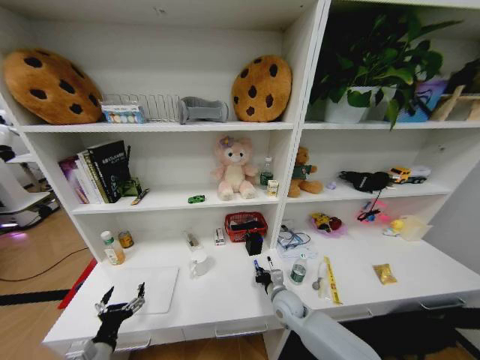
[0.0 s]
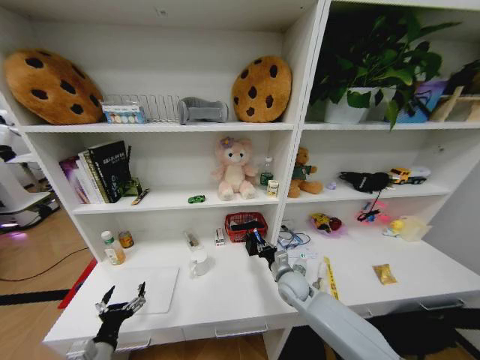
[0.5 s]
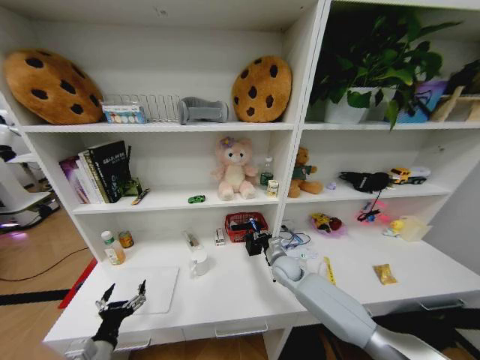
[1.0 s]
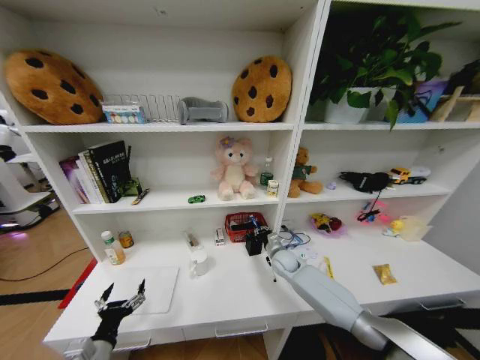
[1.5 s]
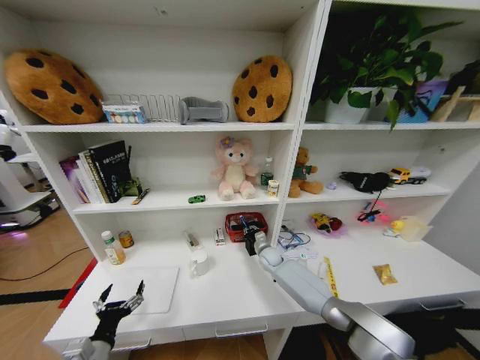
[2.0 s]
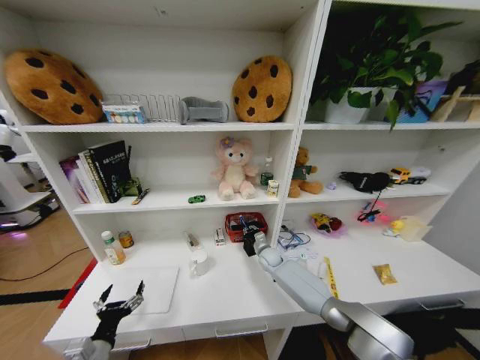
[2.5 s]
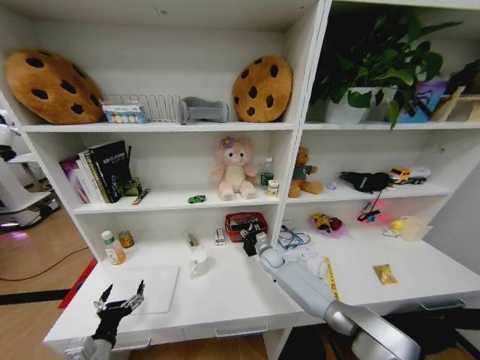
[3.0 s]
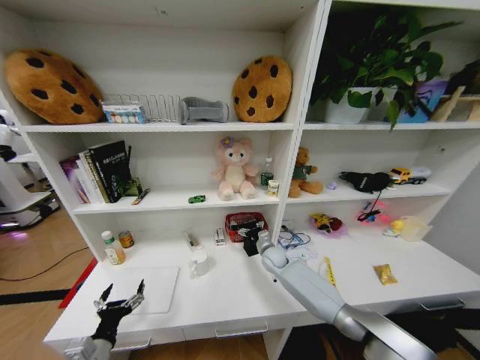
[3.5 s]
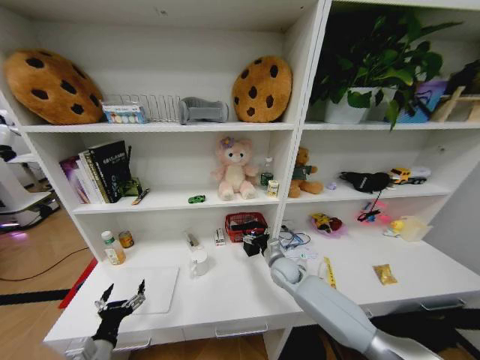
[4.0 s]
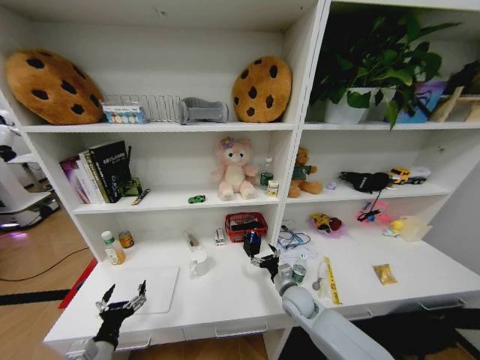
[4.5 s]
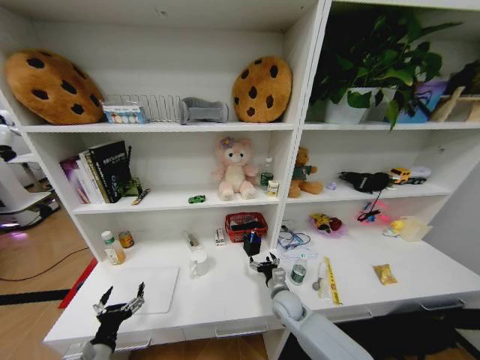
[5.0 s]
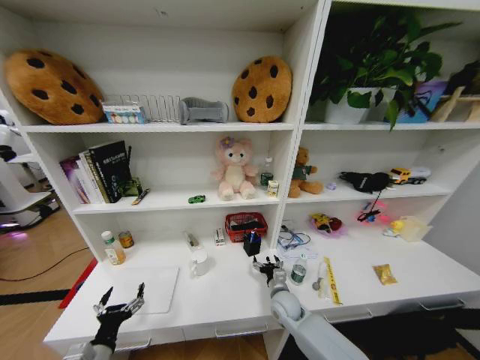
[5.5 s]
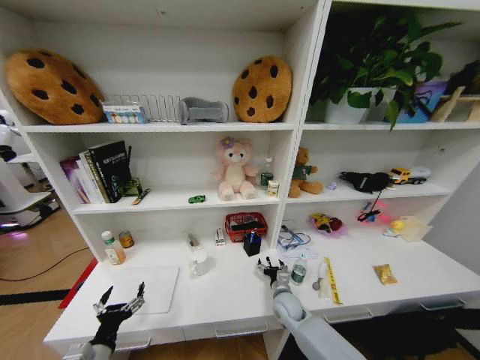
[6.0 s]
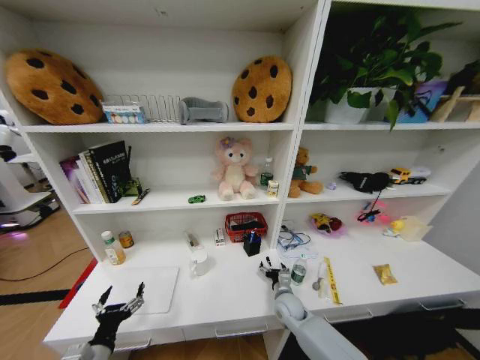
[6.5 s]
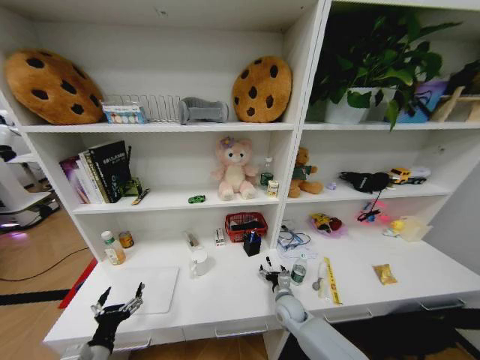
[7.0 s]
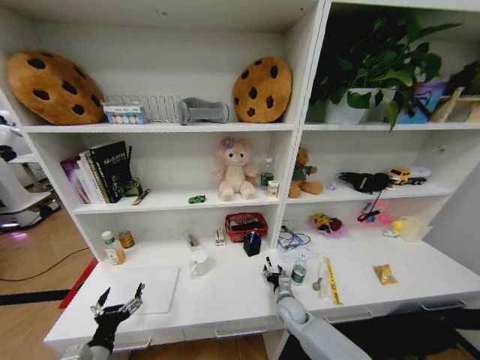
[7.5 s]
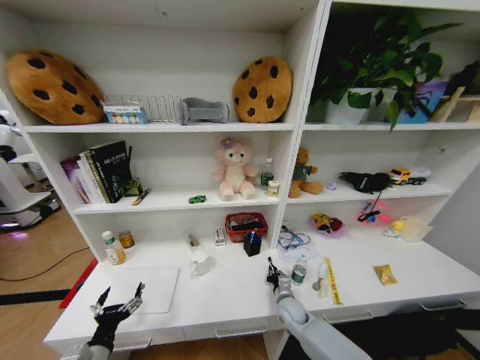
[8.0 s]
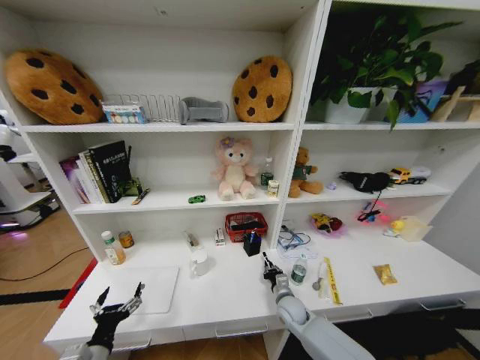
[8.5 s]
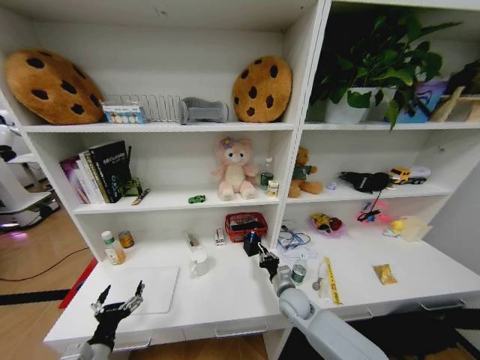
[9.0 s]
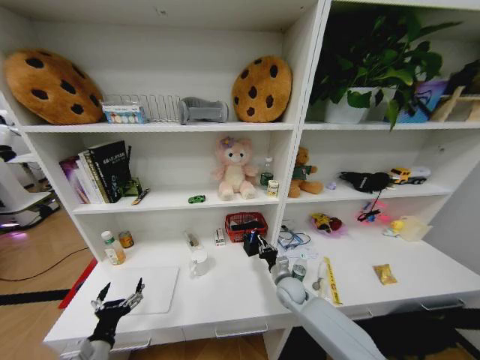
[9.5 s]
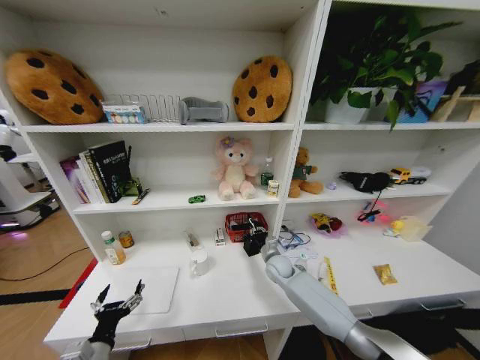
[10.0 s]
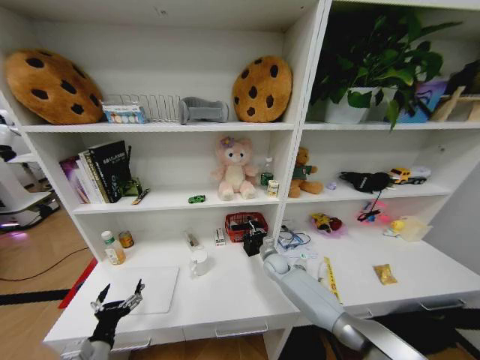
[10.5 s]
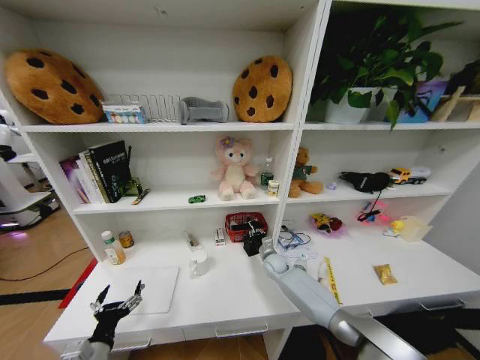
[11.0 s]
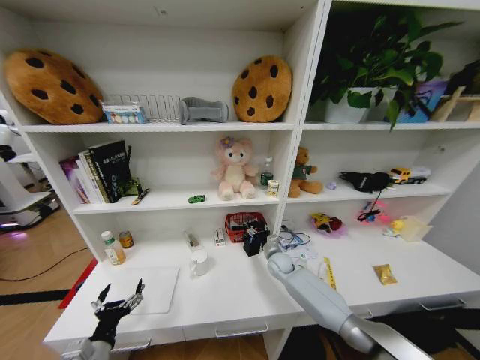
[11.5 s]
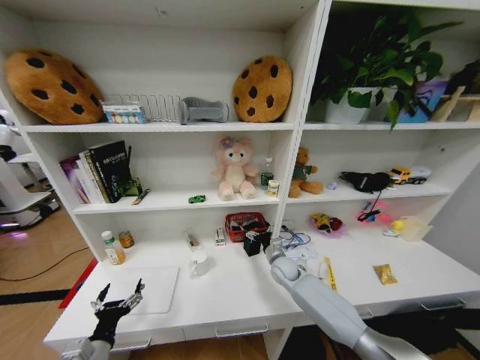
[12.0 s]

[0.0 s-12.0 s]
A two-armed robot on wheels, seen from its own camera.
Task of the whole recording: Organize the objects on the table.
0.0 to 2.0 s: The right gripper goes some 20 cm forward.
2.0 to 4.0 s: The right gripper travels backward and upward by approximately 10 cm, and opens.
4.0 to 6.0 s: The right gripper is displaced backward and downward by roughly 15 cm.
6.0 to 8.0 s: The right gripper closes up.
8.0 to 10.0 s: The right gripper is displaced forward and upward by roughly 15 cm.
10.0 to 12.0 s: The right gripper opens up.

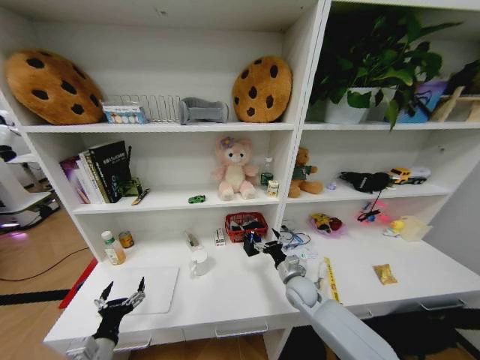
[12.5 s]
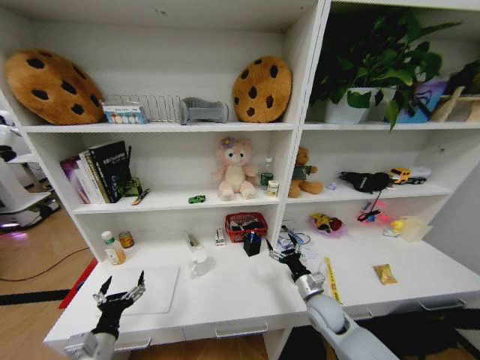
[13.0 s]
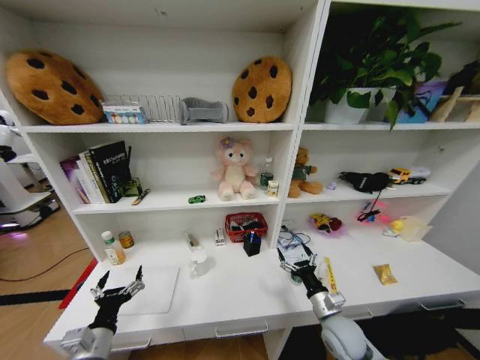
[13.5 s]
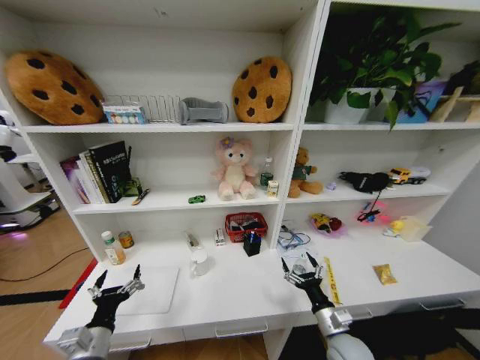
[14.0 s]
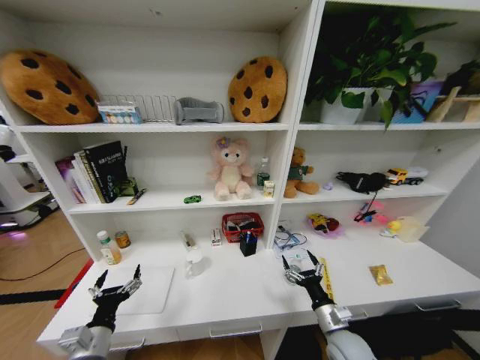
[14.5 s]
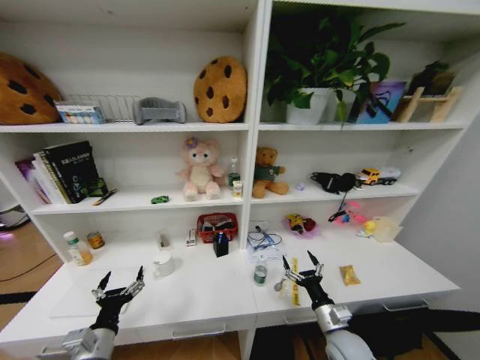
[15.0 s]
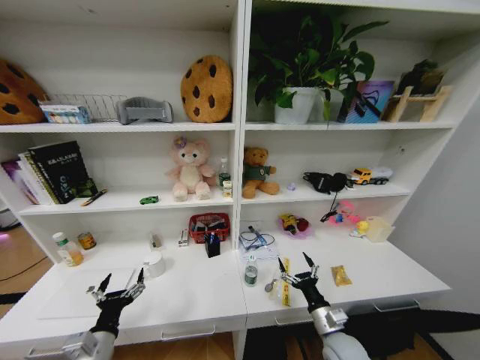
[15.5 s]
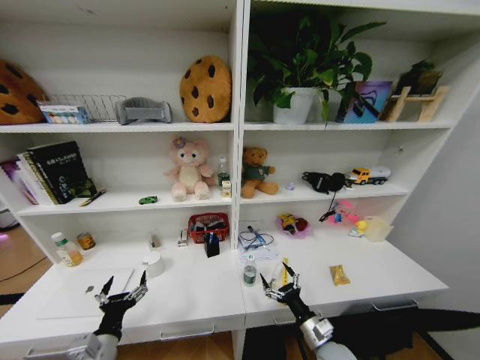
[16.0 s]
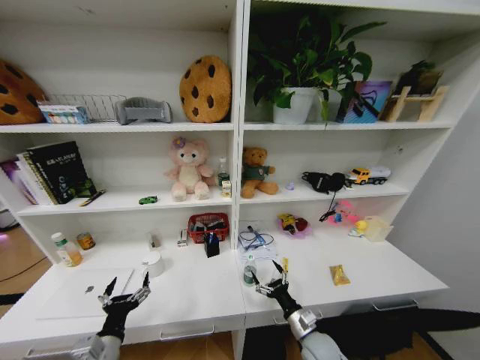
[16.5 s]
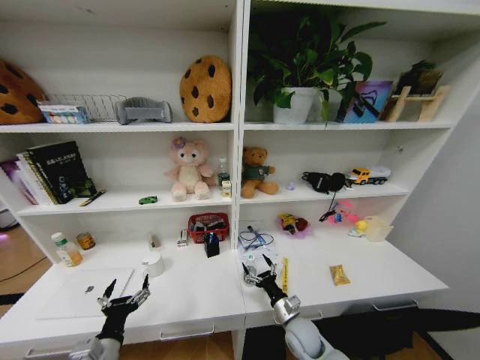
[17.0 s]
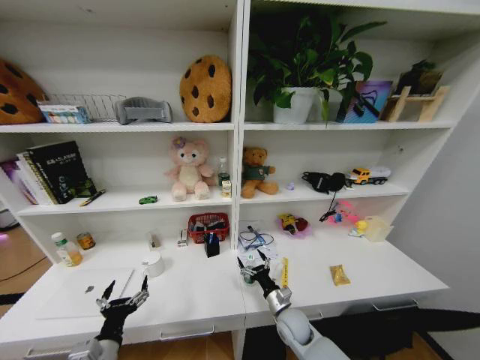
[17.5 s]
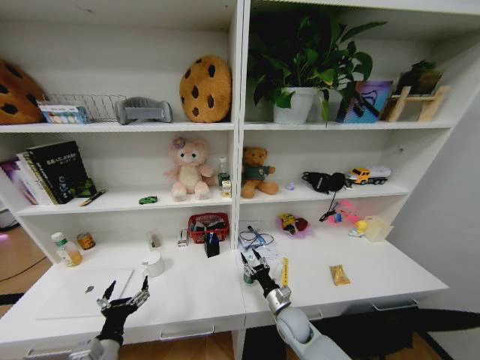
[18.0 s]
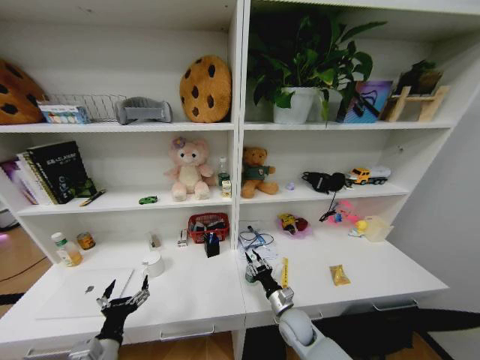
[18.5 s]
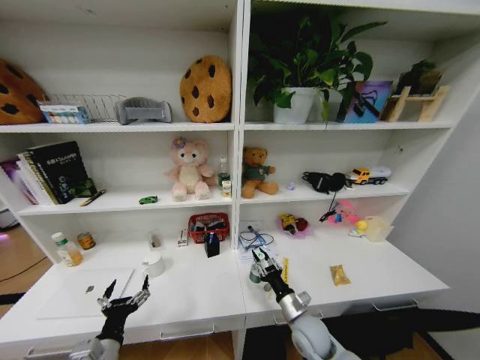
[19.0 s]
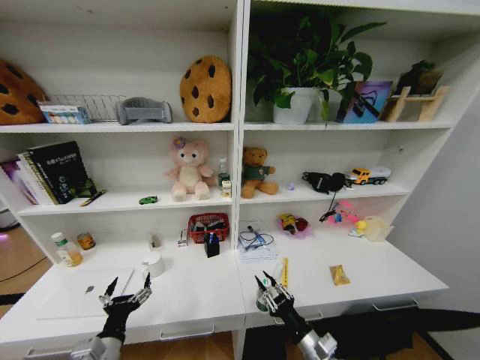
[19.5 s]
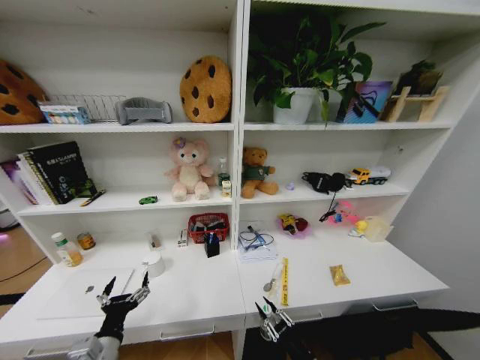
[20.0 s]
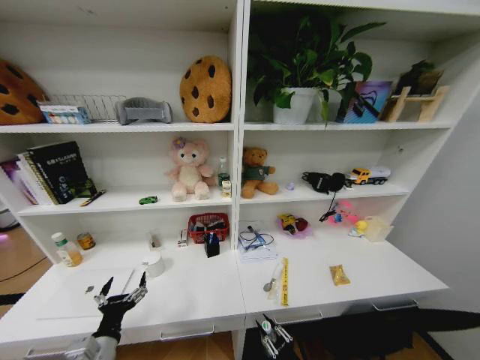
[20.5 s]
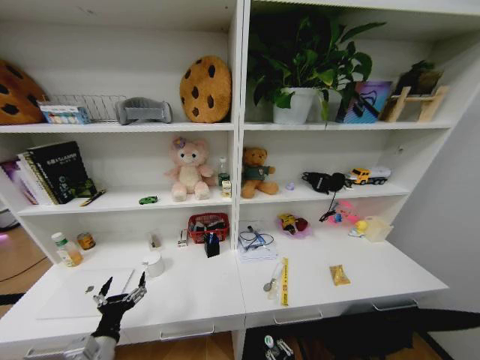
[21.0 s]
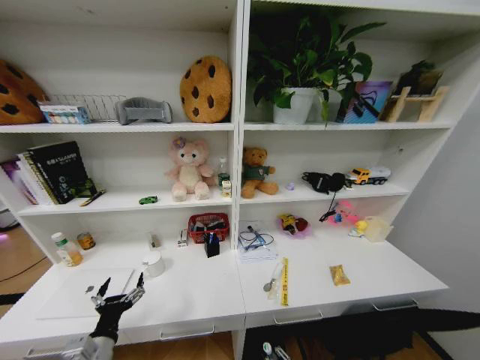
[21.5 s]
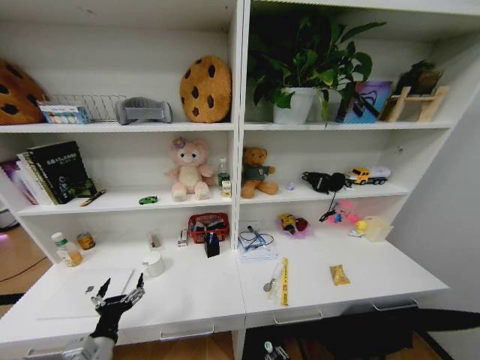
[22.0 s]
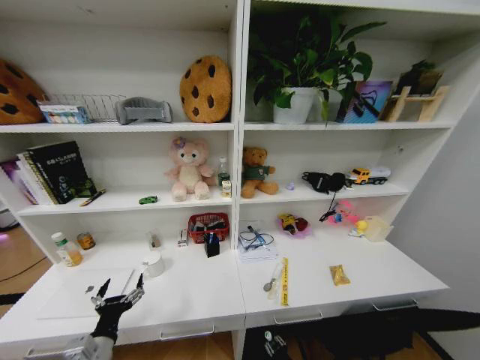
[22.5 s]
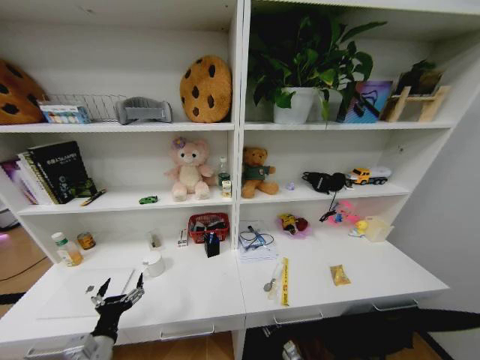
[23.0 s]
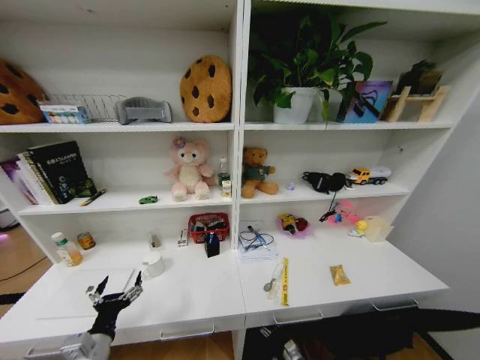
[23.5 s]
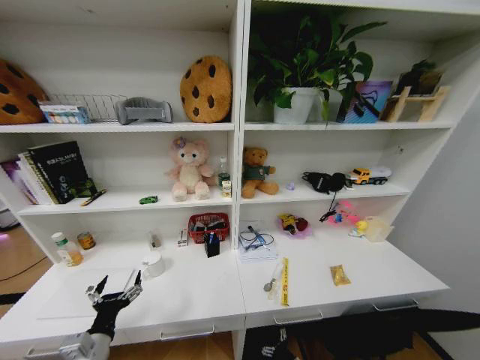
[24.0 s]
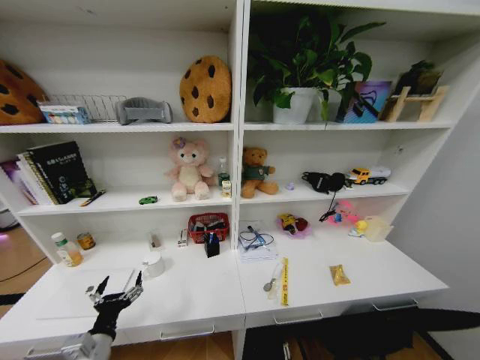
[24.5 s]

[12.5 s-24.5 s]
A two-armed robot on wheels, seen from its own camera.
Task of the whole recording: Organize the objects on the table.
12.5 to 14.5 s: The right gripper is displaced backward and to the right by approximately 15 cm.
14.5 to 16.5 s: The right gripper travels to the left by approximately 5 cm.
16.5 to 18.5 s: The right gripper is displaced forward by about 5 cm, and closes.
18.5 to 20.5 s: The right gripper is displaced backward by about 20 cm.

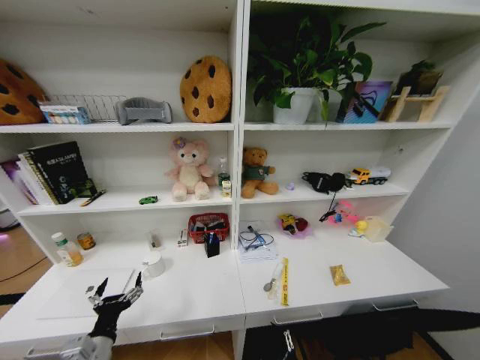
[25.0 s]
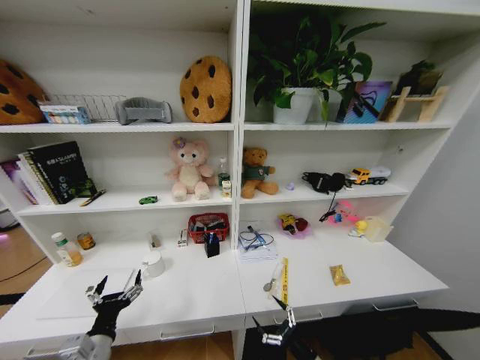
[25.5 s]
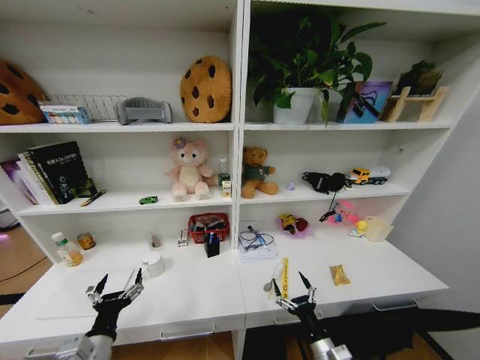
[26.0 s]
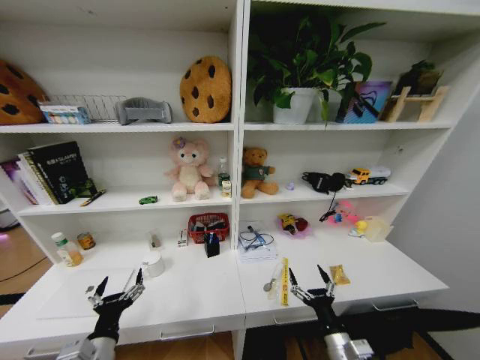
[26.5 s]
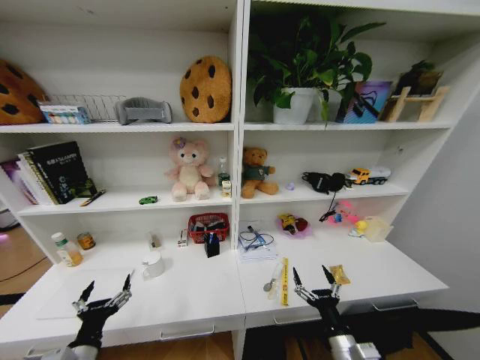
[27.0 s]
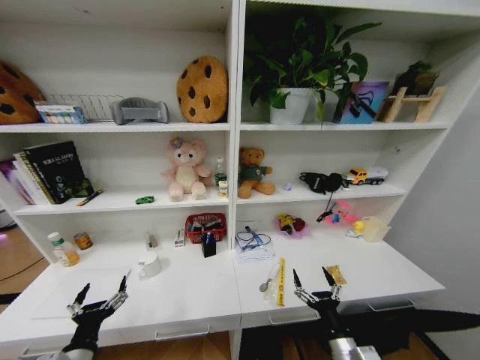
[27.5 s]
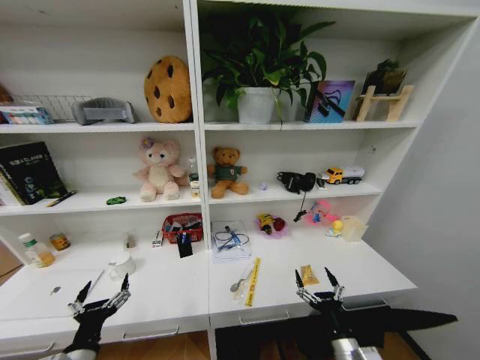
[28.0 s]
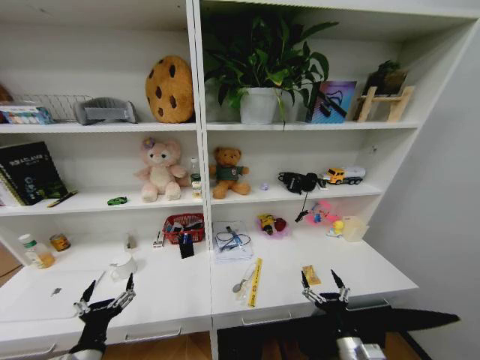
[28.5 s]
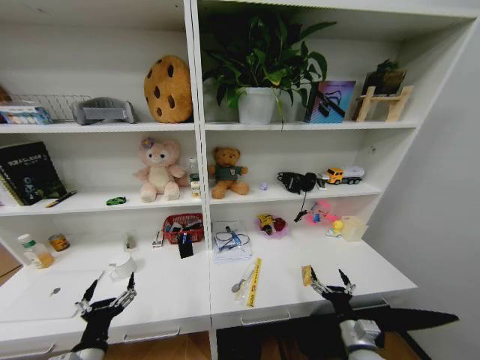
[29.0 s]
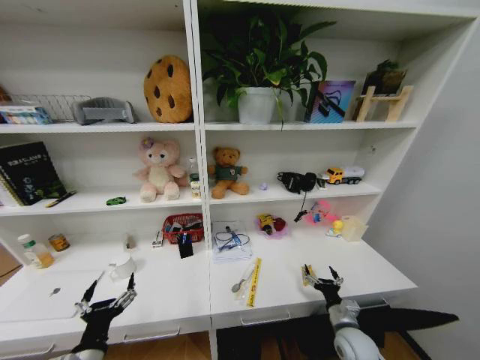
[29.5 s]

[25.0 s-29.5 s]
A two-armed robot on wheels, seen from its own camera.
Task of the whole recording: Organize the objects on the table.
25.0 to 27.0 s: The right gripper goes about 20 cm upward.
27.0 to 29.5 s: The right gripper shifts approximately 15 cm forward, to the right and downward.
